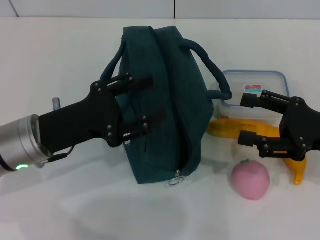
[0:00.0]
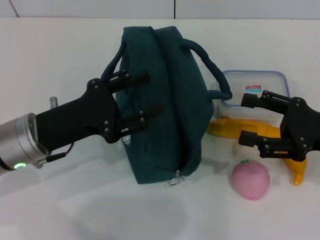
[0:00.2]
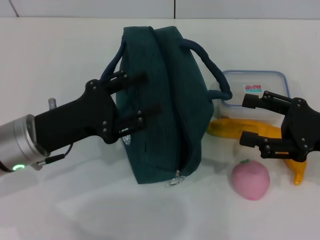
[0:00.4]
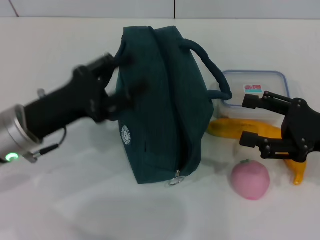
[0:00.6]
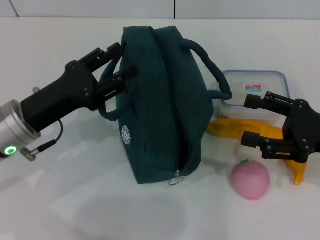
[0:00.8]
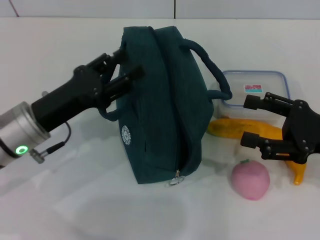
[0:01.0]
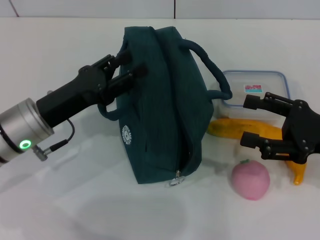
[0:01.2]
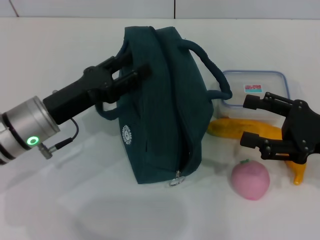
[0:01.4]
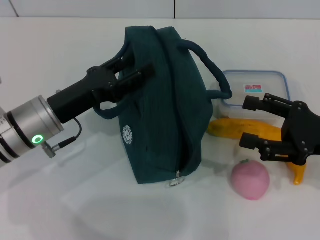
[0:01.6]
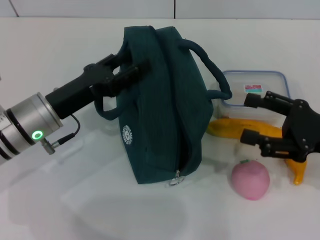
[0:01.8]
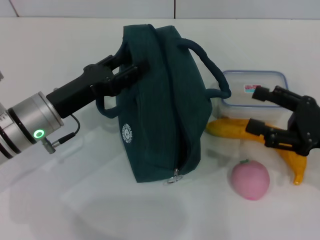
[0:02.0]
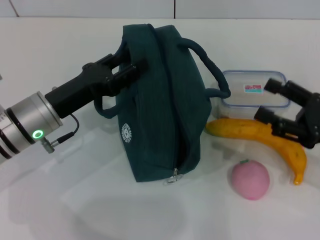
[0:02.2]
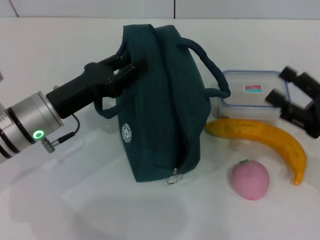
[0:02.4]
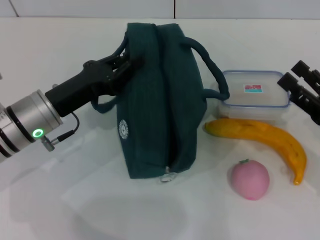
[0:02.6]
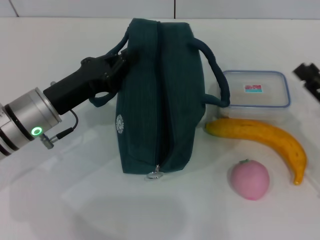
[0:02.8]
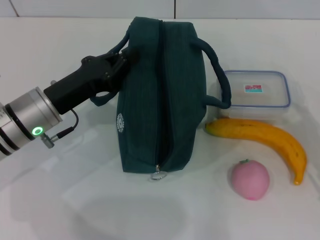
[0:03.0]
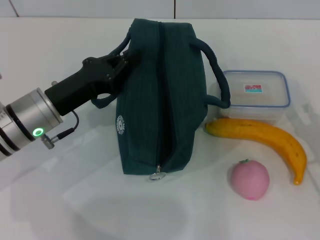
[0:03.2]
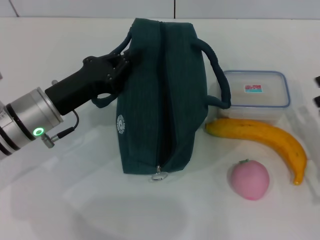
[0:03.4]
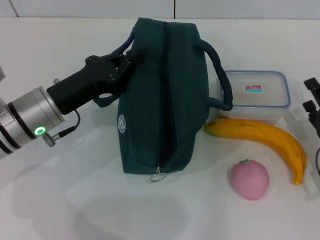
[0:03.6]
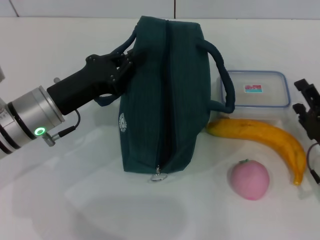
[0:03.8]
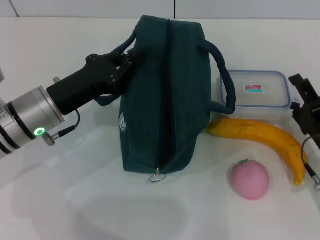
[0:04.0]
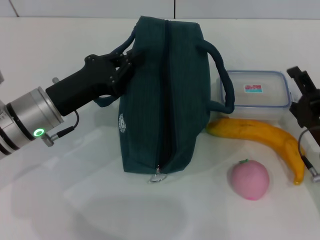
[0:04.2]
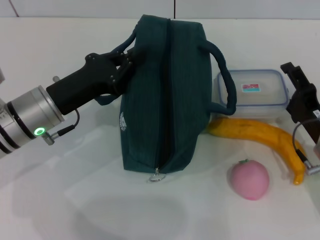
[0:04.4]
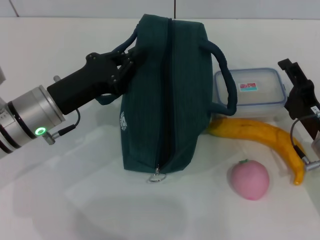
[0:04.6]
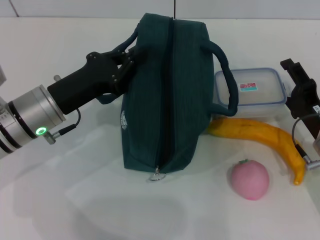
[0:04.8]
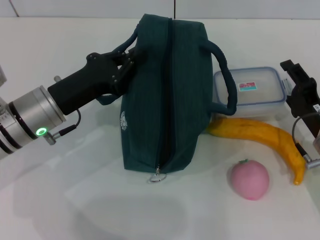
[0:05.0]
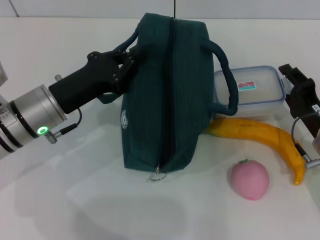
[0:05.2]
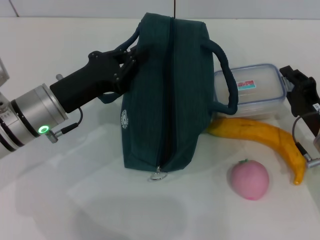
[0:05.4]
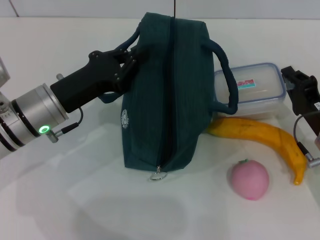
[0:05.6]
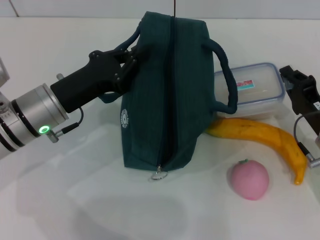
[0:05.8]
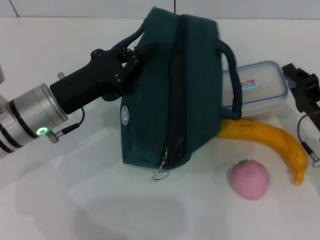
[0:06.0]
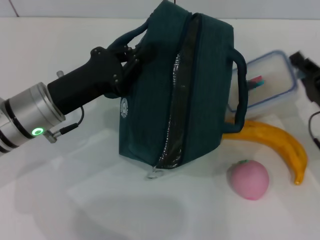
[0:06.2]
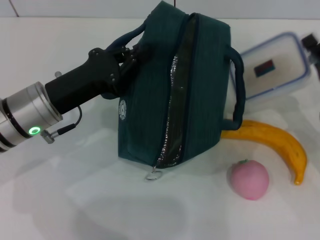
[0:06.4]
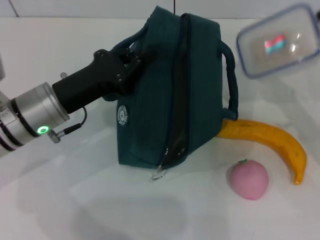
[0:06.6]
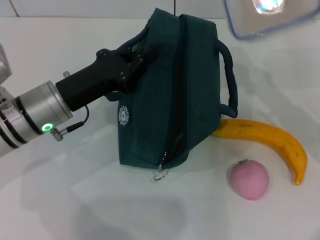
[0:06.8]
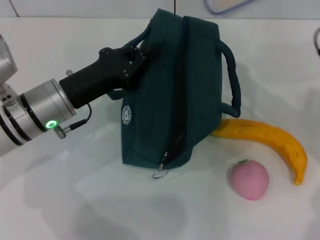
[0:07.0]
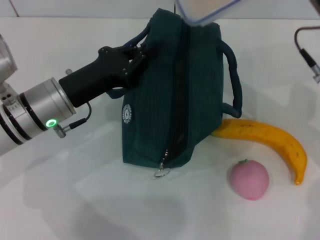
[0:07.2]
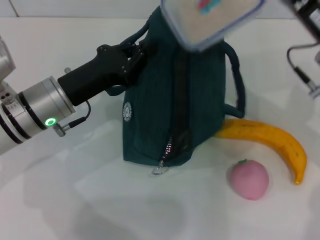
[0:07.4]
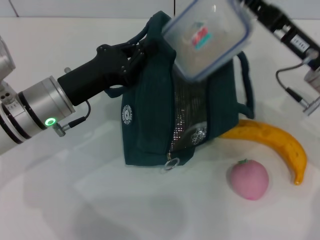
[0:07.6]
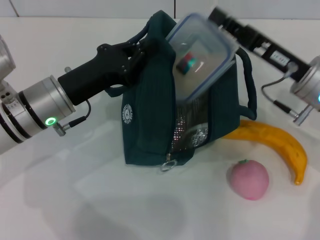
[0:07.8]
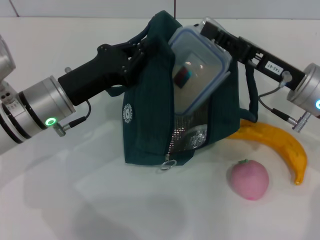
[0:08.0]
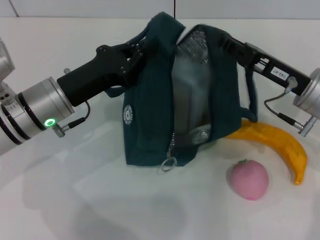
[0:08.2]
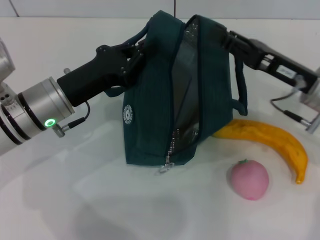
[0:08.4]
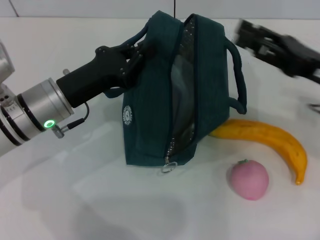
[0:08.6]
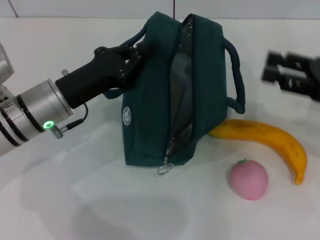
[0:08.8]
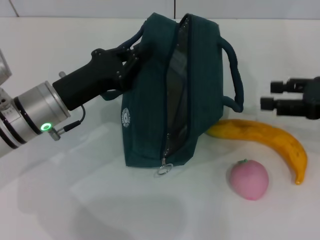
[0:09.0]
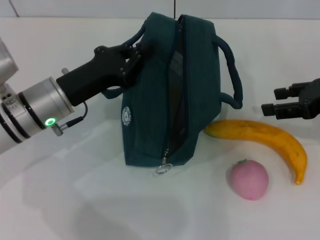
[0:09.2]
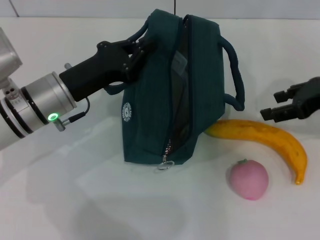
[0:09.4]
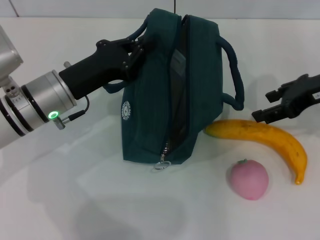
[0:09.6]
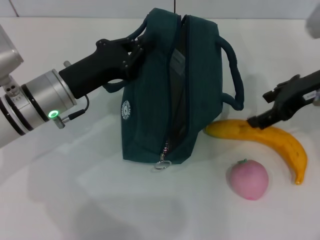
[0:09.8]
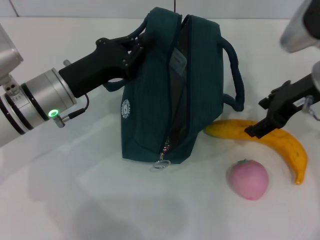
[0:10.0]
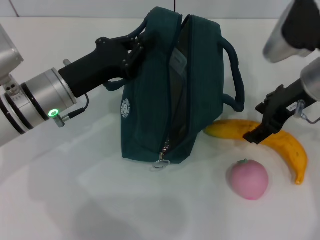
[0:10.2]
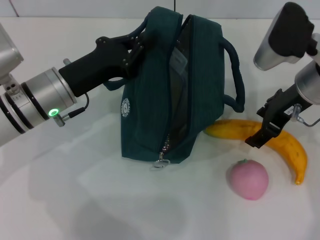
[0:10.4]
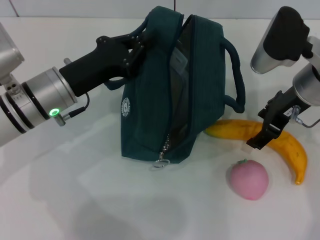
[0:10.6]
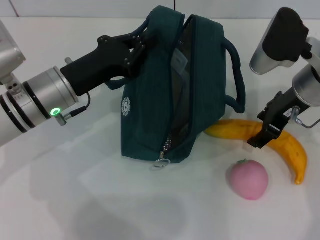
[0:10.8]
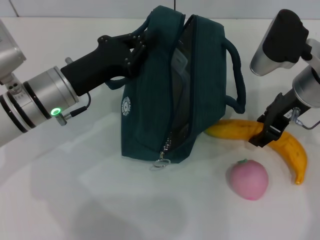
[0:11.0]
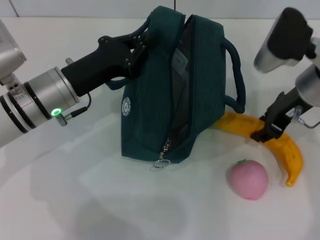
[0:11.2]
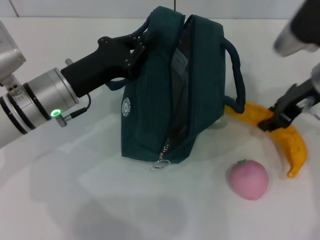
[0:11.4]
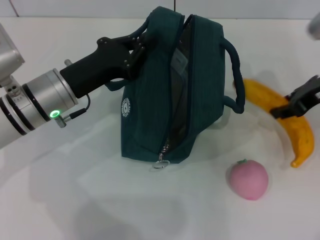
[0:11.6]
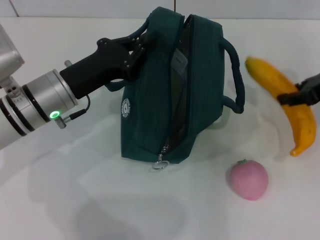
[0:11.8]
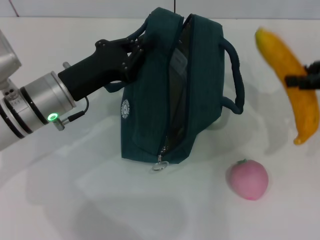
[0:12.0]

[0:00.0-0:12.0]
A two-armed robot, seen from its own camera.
Step, 0:00.0 to 0:03.4: Hold the lunch bag with your left hand.
Step, 0:03.6 to 0:06.0: Pick up the lunch box with your right hand.
Step, 0:06.2 to 0:08.6: Place the lunch box into the lunch bag with your right hand.
Step, 0:08.8 to 0:11.0: Take the banana with your right hand.
0:01.6 to 0:03.0: The right gripper goes about 5 cm downward. Meanwhile the left gripper closes.
0:03.0 to 0:04.4: The right gripper goes about 5 cm to the left.
0:04.4 to 0:06.0: The right gripper closes.
0:06.0 to 0:07.6: The right gripper moves upward and forward, about 10 cm.
0:07.6 to 0:09.0: The right gripper shifts some 10 cm to the right, and opens.
0:09.0 to 0:10.4: The right gripper is displaced to the left and forward by about 15 cm.
0:10.4 to 0:12.0: The right gripper is displaced to the right by some 10 cm, and closes.

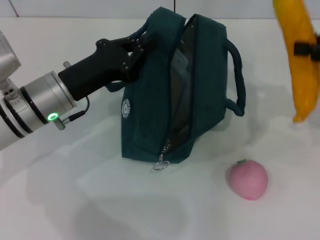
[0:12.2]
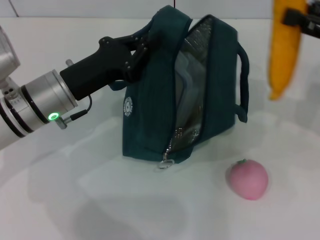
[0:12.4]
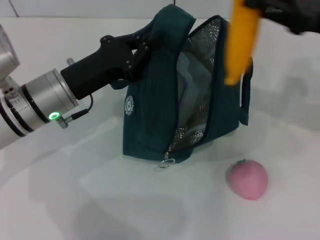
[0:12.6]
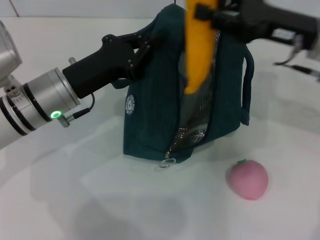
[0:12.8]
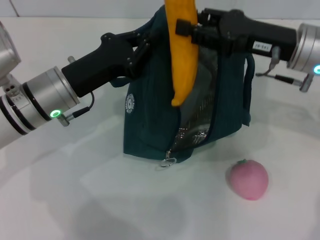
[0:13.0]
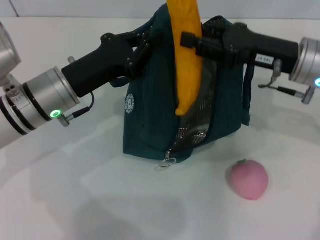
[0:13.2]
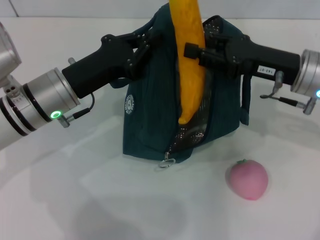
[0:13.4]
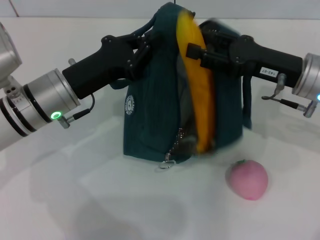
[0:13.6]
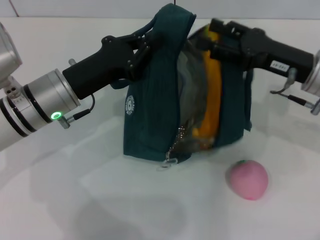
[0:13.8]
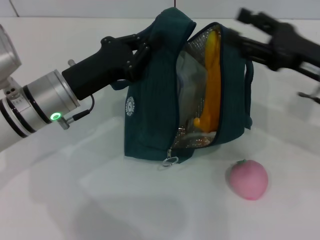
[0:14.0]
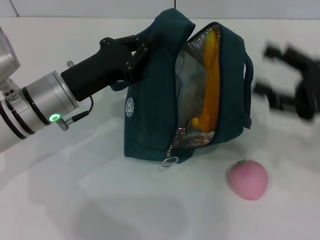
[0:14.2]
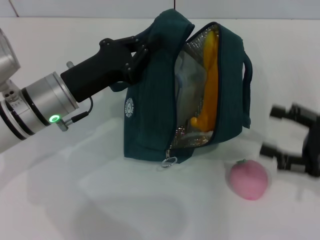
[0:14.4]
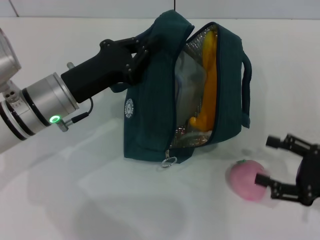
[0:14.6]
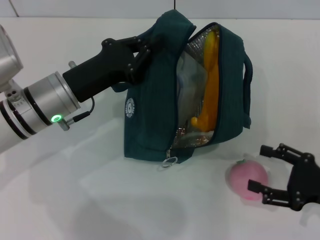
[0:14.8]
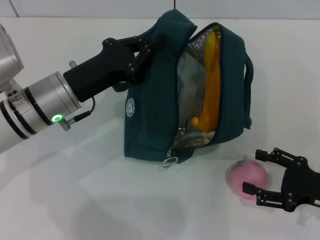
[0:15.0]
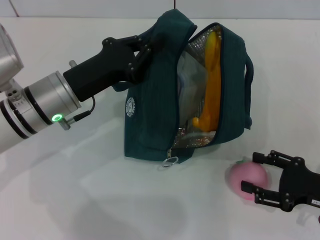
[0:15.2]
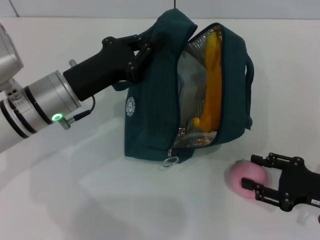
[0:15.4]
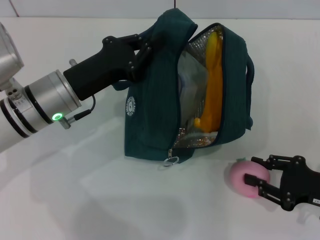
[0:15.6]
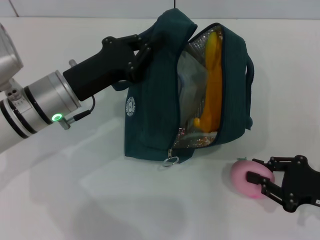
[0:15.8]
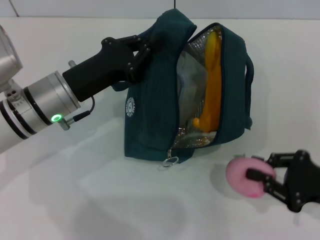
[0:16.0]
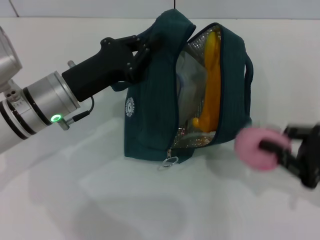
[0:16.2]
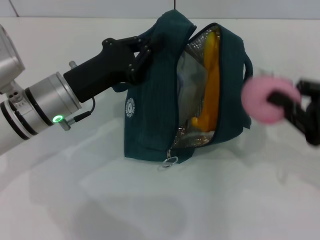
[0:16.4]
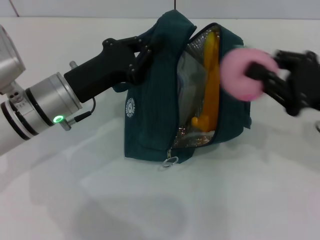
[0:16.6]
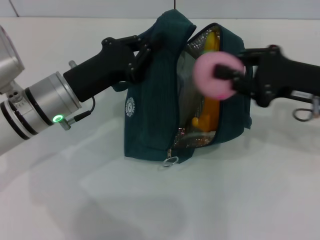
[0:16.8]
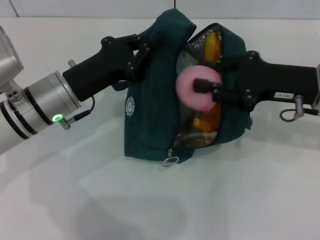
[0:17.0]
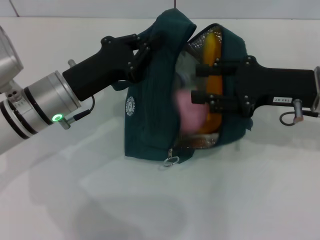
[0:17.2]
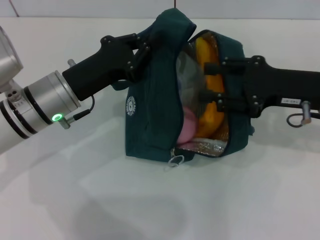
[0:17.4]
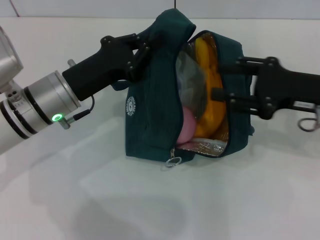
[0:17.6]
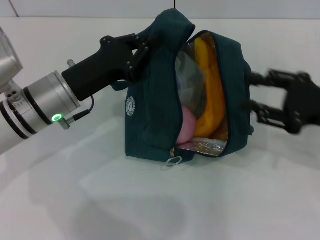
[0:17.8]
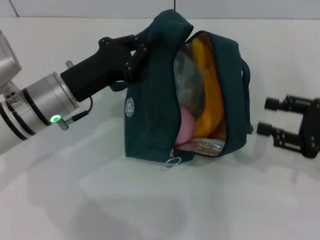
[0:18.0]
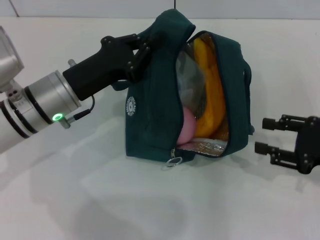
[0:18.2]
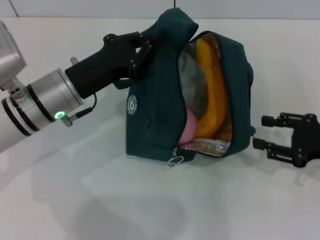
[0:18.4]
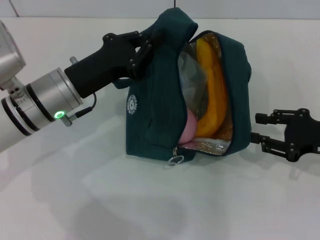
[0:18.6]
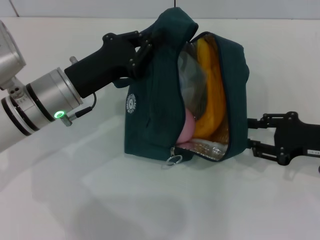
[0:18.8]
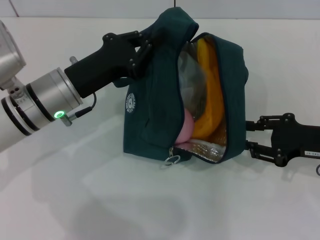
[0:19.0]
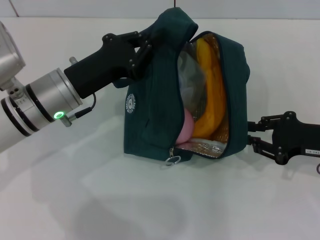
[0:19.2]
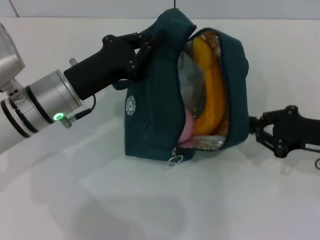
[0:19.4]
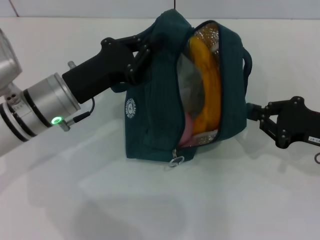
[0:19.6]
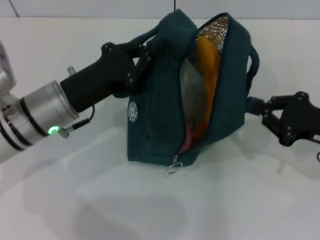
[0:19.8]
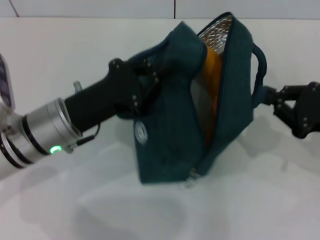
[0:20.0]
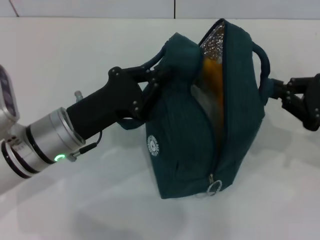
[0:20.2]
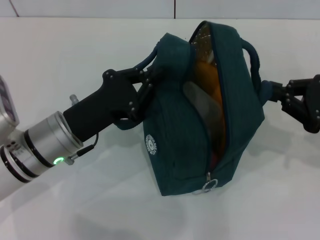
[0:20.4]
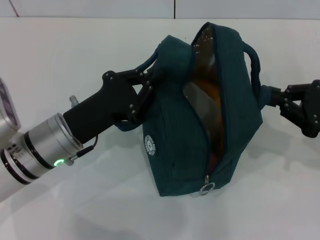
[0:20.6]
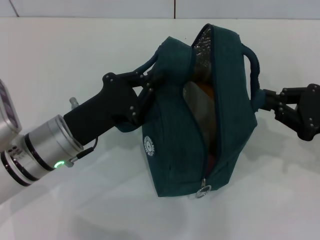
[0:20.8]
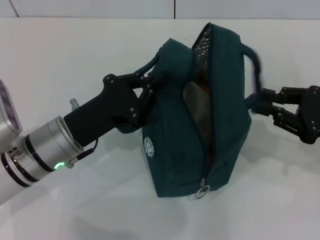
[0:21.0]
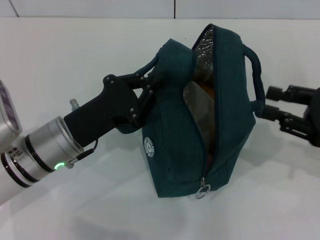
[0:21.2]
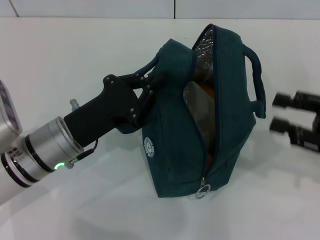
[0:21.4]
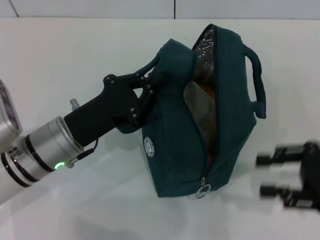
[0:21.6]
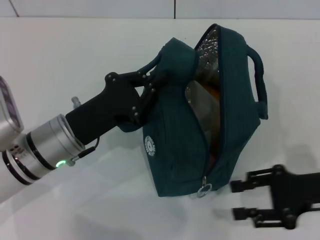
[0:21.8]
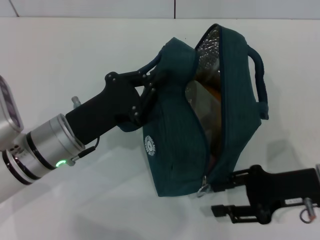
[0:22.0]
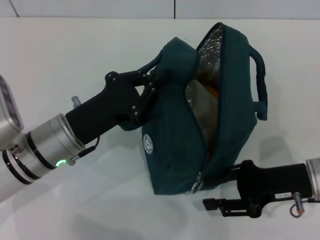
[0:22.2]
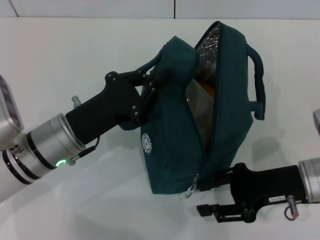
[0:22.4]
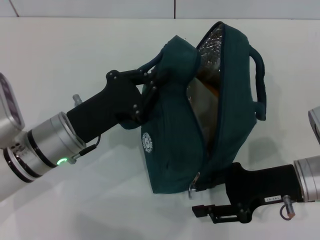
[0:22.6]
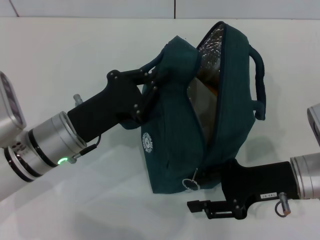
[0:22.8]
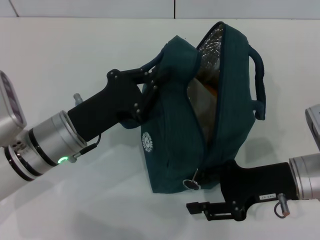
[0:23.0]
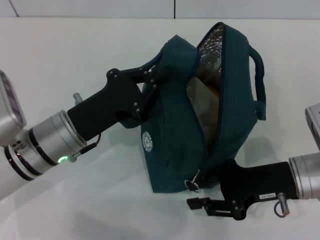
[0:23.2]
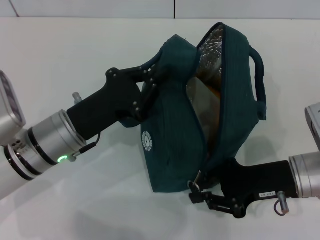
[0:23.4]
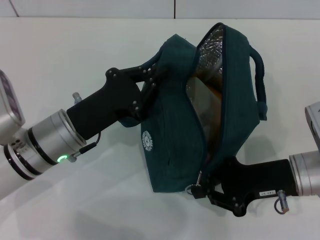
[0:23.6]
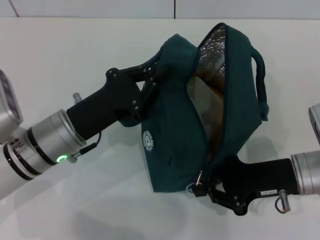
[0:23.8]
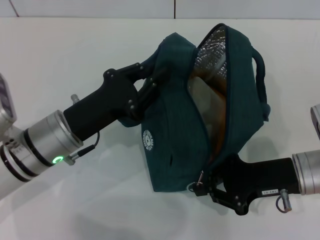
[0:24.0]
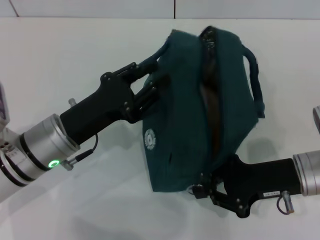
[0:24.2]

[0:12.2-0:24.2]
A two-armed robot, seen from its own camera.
Step, 0:12.2 to 0:14.2: Put the banana into the lunch bag with your right hand.
Step, 0:14.4 to 0:15.6: Grab the peach with your right hand.
Step, 0:17.8 to 0:21.6: Hold the lunch bag with your right hand.
0:12.2 to 0:13.8: The right gripper heads to the left and downward, covering roughly 15 cm.
0:13.8 to 0:15.2: The right gripper goes some 20 cm backward, downward and to the right.
0:15.2 to 0:16.6: The right gripper goes approximately 10 cm upward and forward, and closes up.
0:16.6 to 0:18.2: The right gripper shifts by approximately 5 cm, and opens its fingers.
0:18.2 to 0:19.8: The right gripper closes up.
0:19.8 to 0:21.2: The right gripper opens its fingers.
0:21.2 to 0:22.6: The right gripper is displaced to the left and downward by roughly 10 cm.
0:22.6 to 0:24.2: The right gripper closes.
